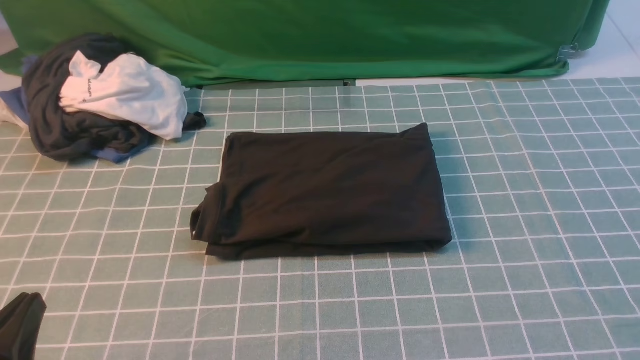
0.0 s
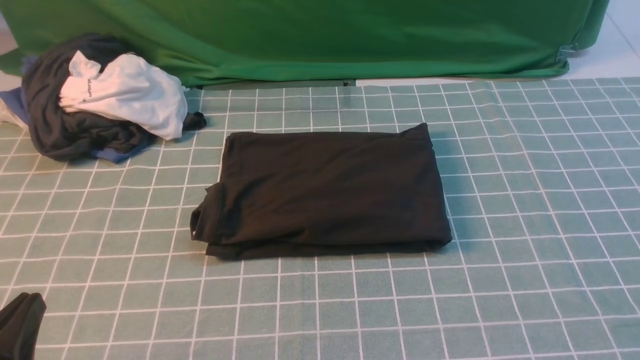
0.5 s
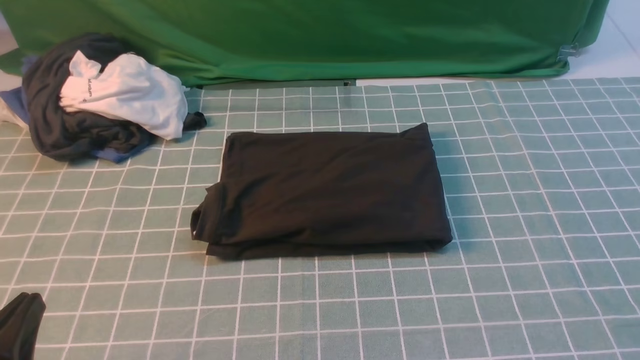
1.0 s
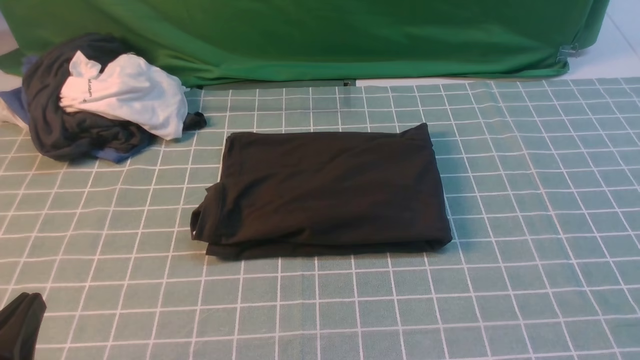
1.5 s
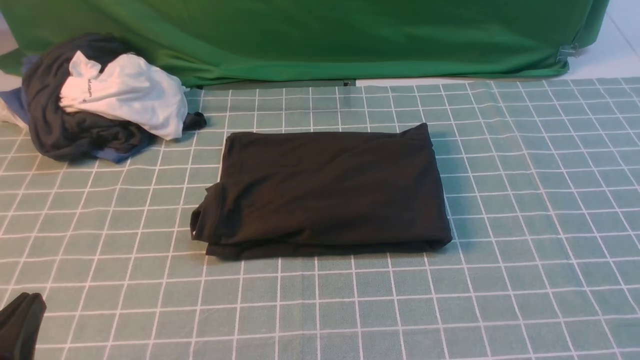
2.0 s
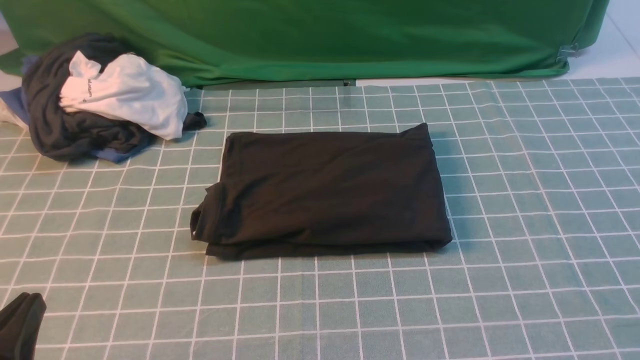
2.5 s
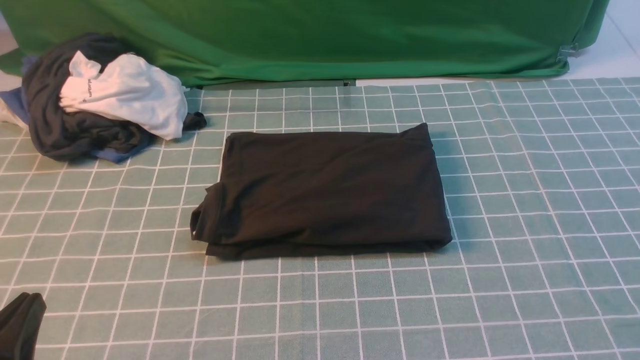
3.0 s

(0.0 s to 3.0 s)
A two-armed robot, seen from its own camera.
1.5 s - 3.0 s: Both grippers stay about where they are.
